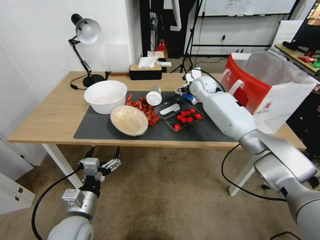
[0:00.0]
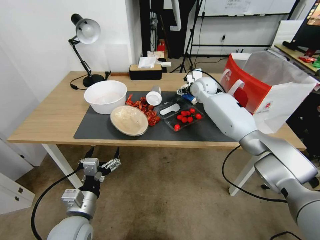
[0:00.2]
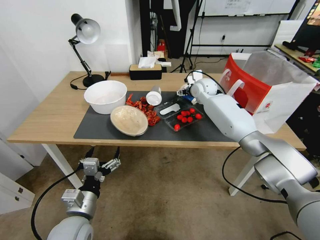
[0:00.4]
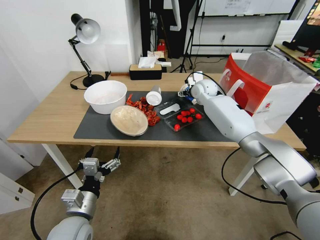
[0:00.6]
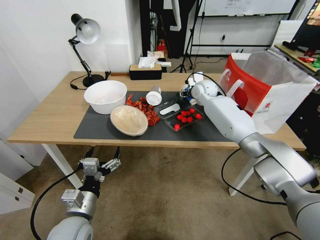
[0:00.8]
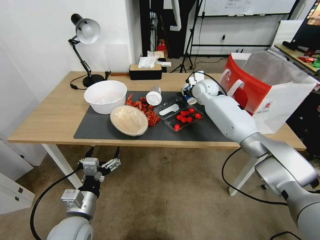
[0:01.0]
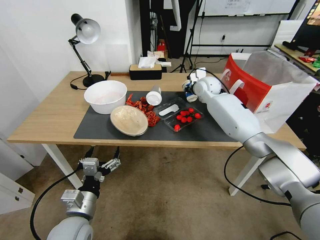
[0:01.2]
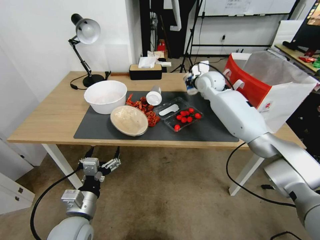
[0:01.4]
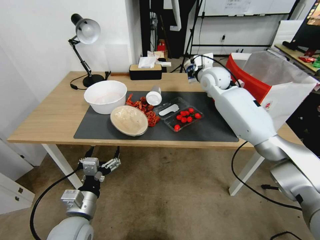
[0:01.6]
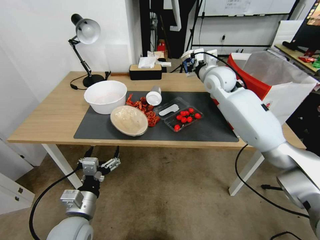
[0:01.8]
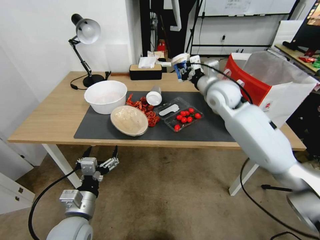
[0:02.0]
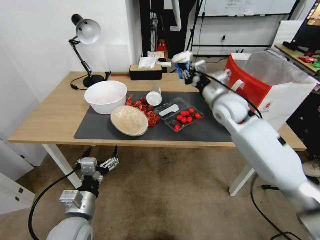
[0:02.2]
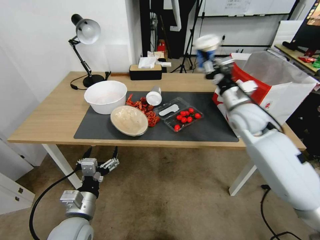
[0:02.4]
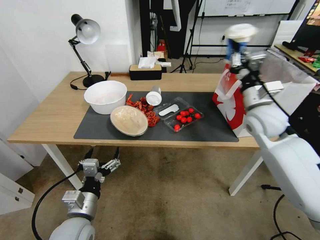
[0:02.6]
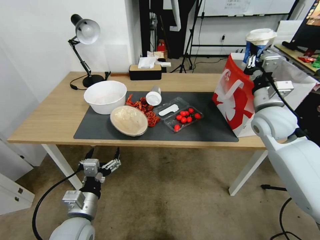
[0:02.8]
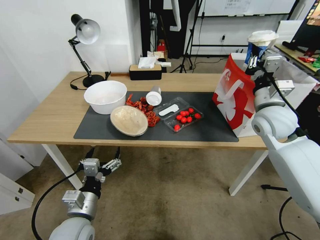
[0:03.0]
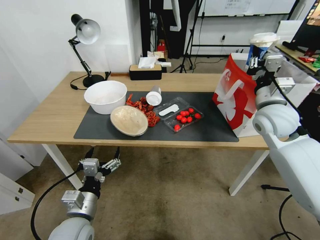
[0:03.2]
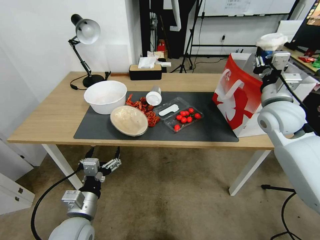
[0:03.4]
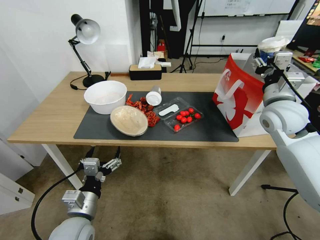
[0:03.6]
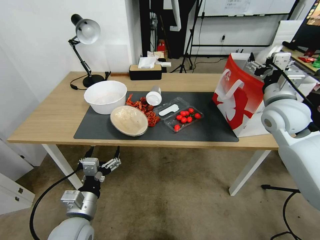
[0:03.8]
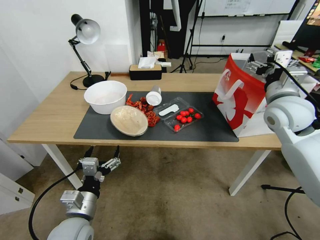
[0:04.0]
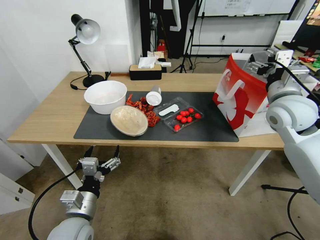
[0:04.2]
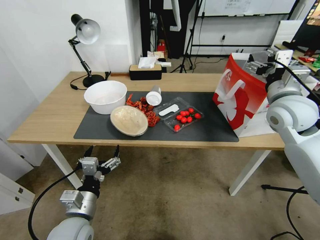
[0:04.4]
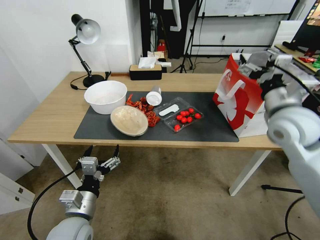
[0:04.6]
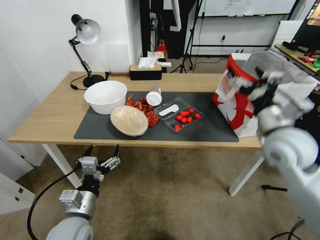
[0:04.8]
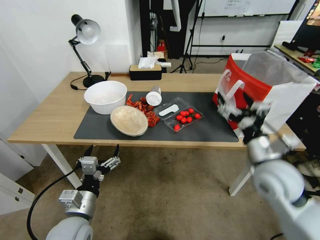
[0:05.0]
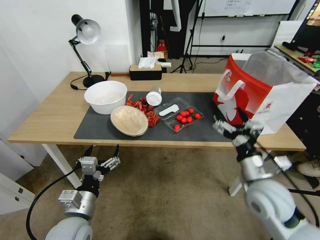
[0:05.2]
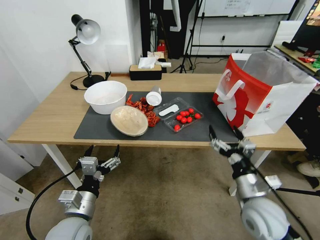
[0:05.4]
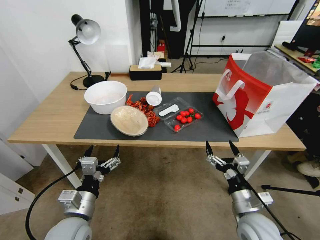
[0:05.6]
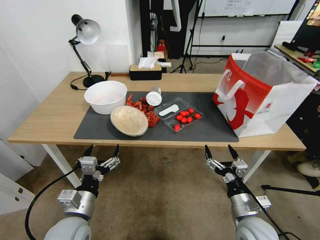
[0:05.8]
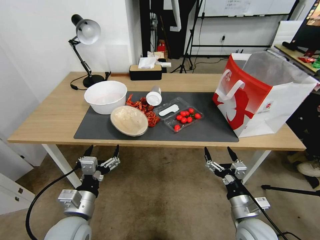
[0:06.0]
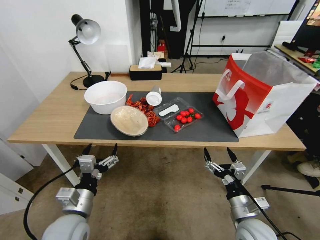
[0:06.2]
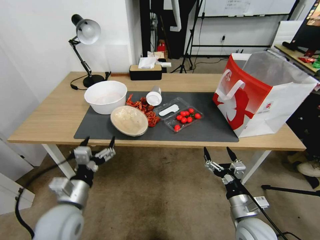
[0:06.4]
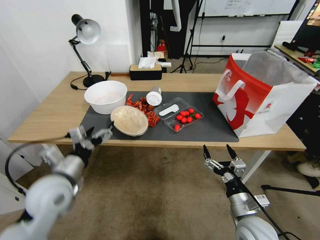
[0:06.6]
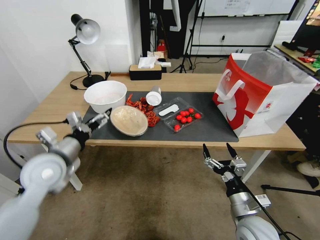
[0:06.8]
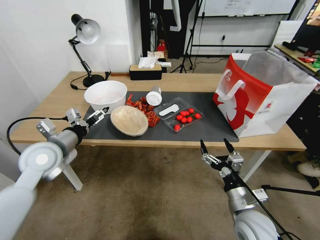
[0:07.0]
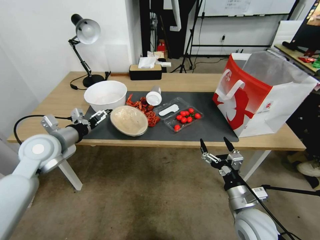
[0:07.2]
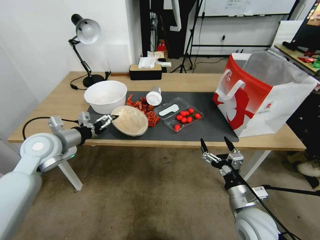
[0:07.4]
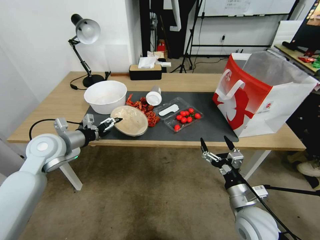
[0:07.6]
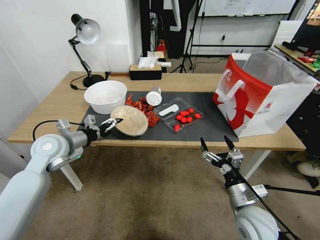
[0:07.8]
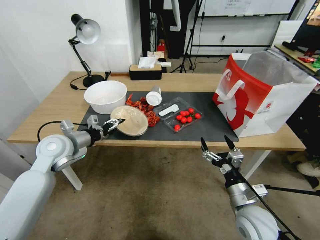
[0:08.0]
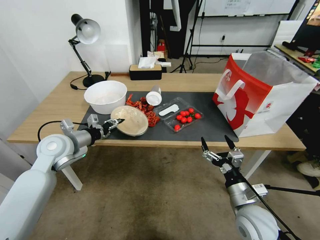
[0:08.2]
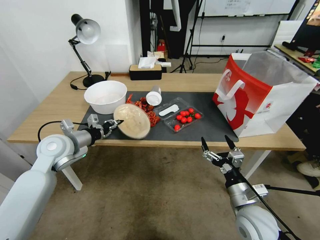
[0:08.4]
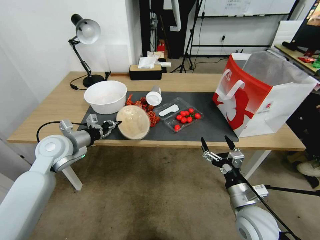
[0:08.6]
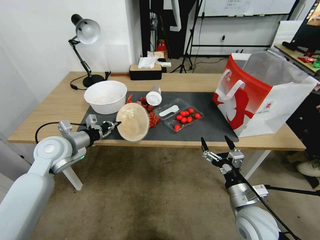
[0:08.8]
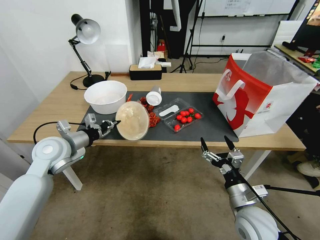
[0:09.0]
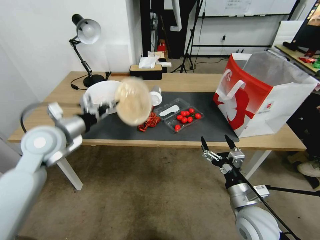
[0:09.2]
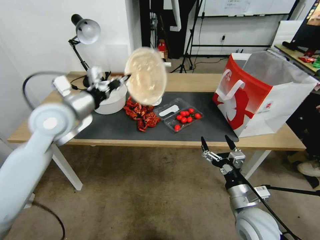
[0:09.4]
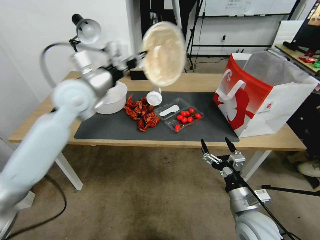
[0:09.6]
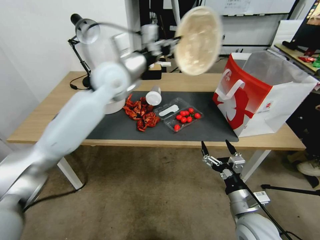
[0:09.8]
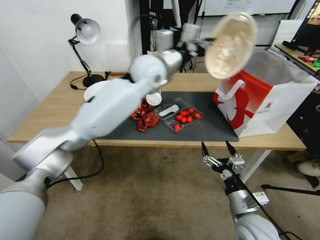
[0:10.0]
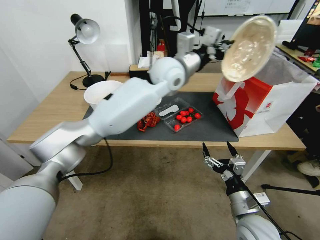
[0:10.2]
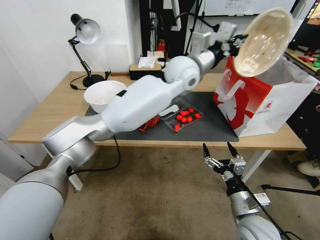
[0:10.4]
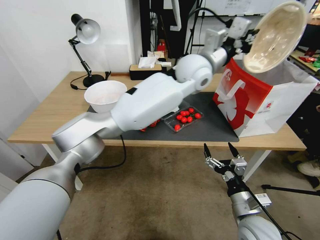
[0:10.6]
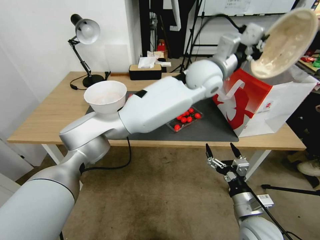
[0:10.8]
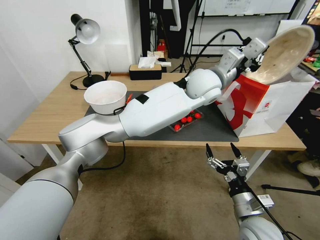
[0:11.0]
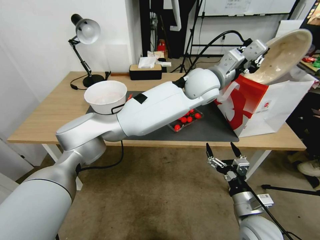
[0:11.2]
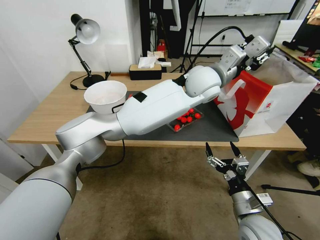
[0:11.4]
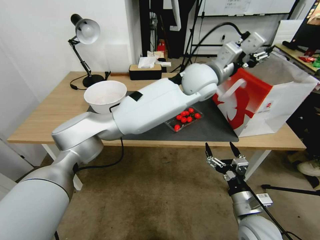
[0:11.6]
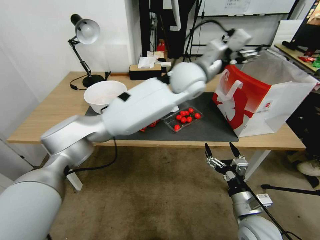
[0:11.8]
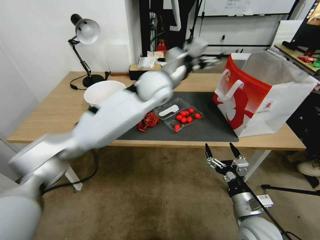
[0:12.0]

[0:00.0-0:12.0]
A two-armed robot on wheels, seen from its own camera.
0:00.0 to 0:01.6: The right gripper shifts about 5 cm upward, and closes its fingers.
0:01.6 to 0:03.0: The right gripper moves backward and to the right, some 20 cm.
0:03.0 to 0:04.4: The right gripper opens up.
0:04.4 to 0:06.0: The right gripper shifts about 35 cm downward and backward.
0:06.0 to 0:07.6: The left gripper moves forward, upward and to the left, approximately 25 cm.
0:07.6 to 0:09.0: The left gripper closes.
0:09.0 to 0:10.4: The left gripper goes some 40 cm to the right and upward.
0:10.4 to 0:12.0: The left gripper heads to the left, covering roughly 10 cm, and opens up.

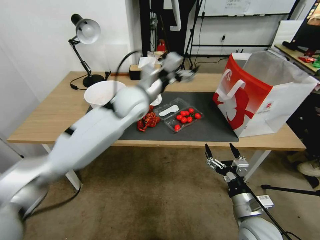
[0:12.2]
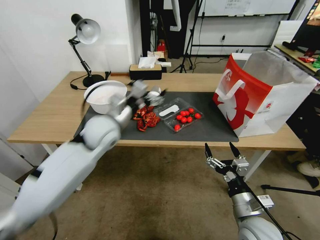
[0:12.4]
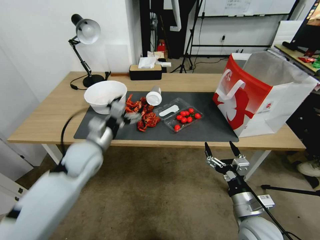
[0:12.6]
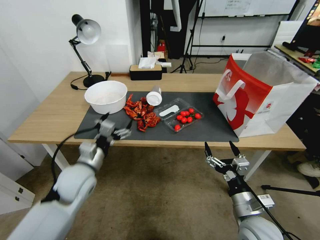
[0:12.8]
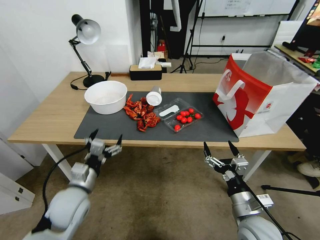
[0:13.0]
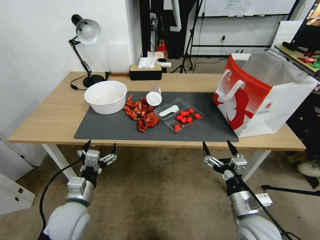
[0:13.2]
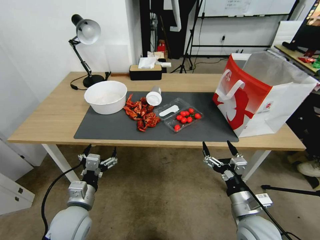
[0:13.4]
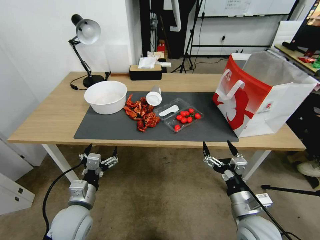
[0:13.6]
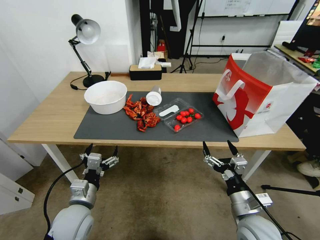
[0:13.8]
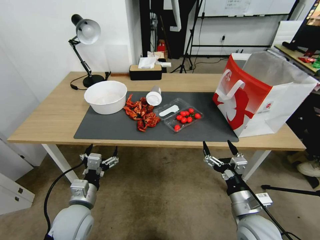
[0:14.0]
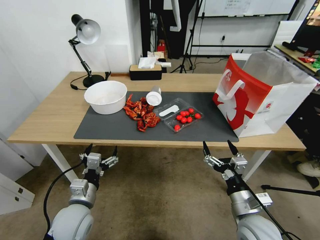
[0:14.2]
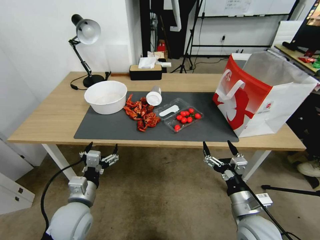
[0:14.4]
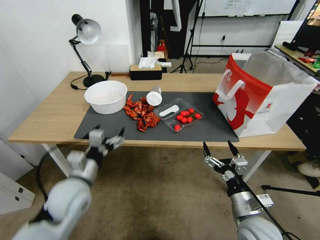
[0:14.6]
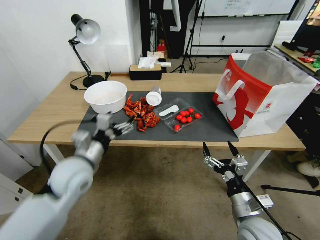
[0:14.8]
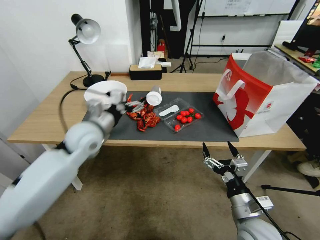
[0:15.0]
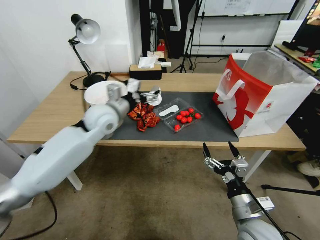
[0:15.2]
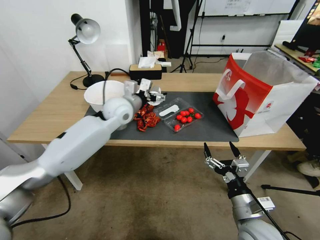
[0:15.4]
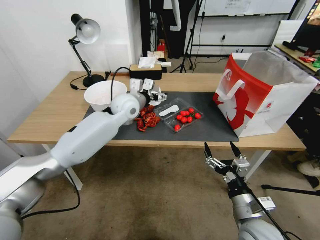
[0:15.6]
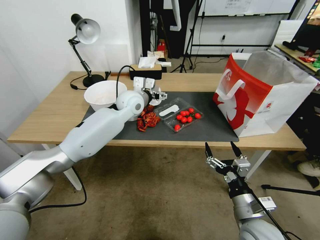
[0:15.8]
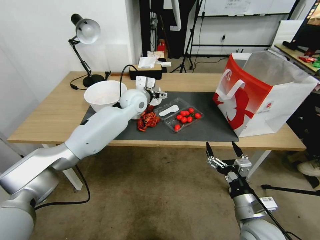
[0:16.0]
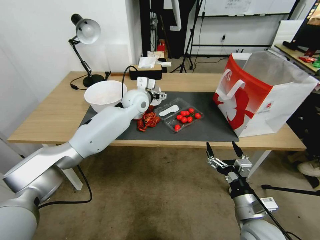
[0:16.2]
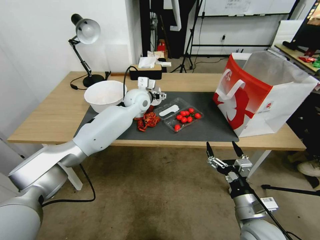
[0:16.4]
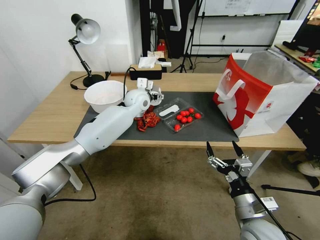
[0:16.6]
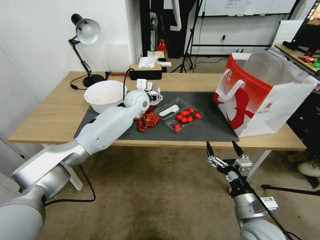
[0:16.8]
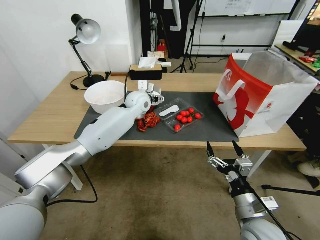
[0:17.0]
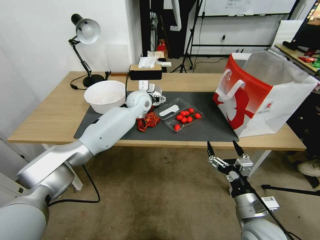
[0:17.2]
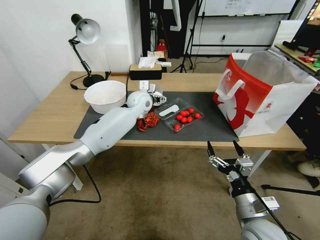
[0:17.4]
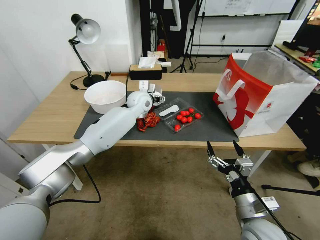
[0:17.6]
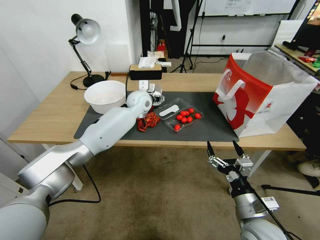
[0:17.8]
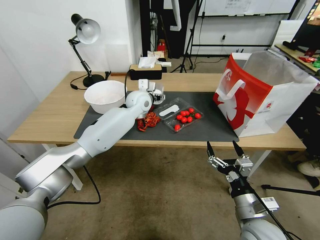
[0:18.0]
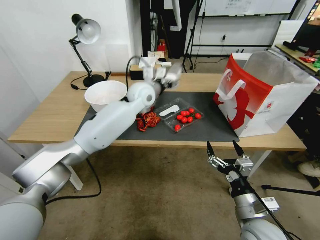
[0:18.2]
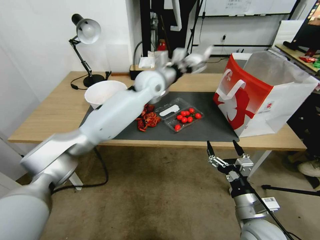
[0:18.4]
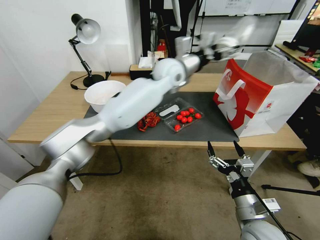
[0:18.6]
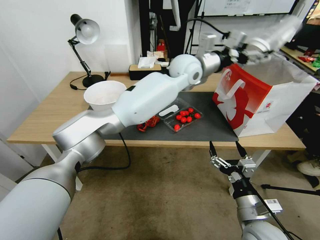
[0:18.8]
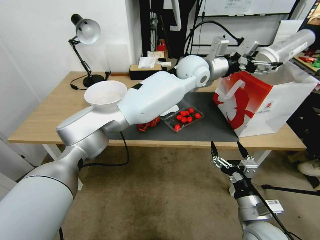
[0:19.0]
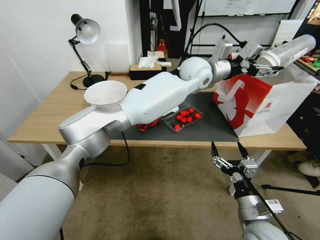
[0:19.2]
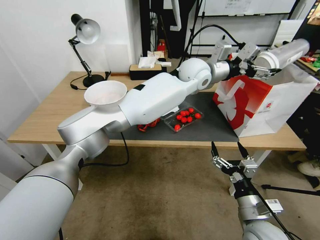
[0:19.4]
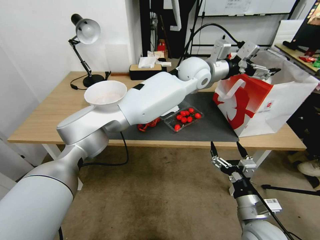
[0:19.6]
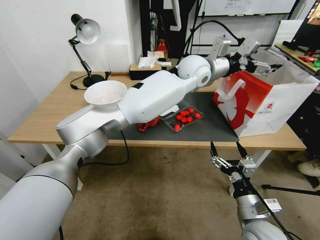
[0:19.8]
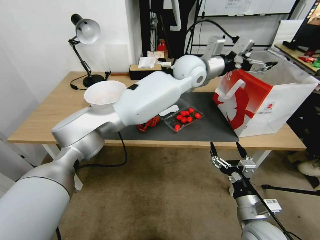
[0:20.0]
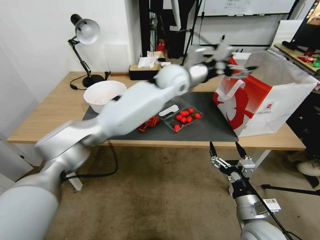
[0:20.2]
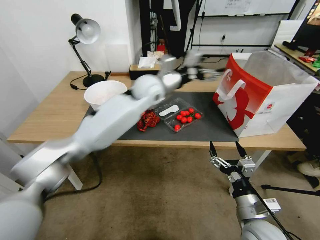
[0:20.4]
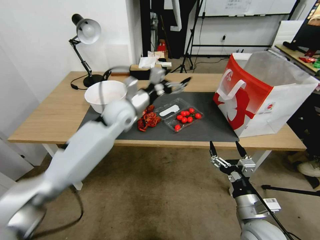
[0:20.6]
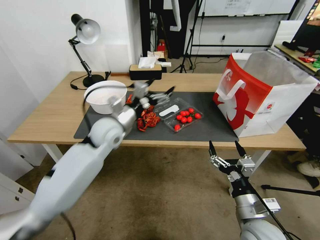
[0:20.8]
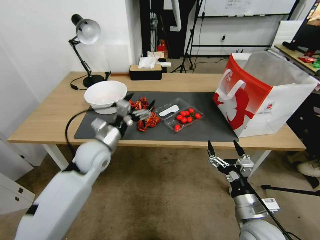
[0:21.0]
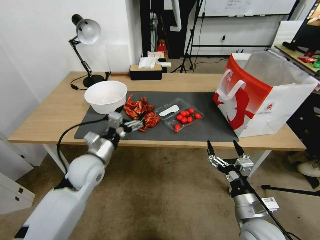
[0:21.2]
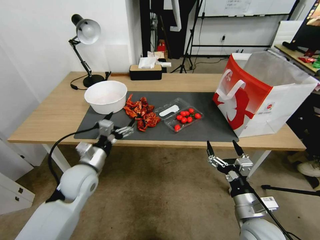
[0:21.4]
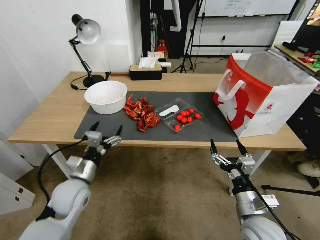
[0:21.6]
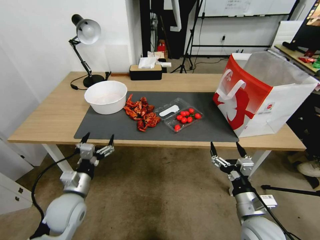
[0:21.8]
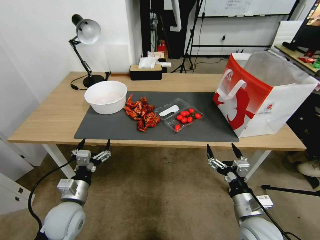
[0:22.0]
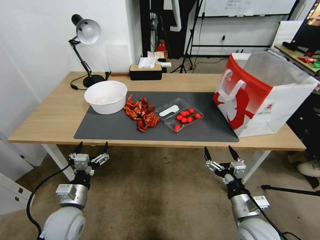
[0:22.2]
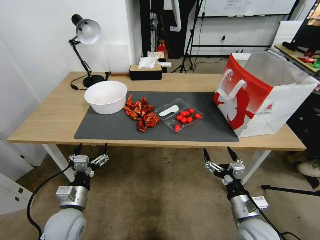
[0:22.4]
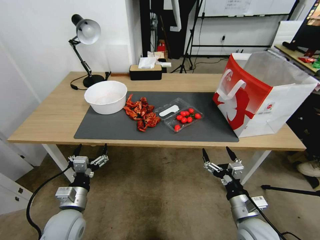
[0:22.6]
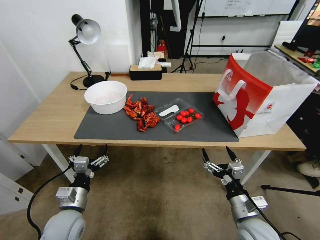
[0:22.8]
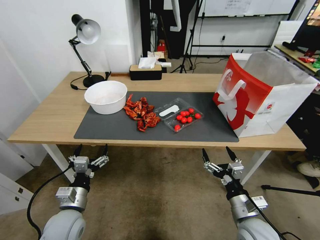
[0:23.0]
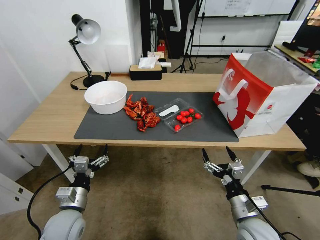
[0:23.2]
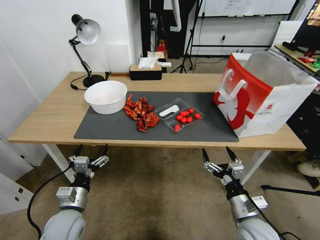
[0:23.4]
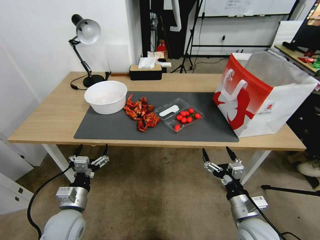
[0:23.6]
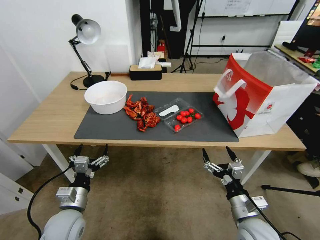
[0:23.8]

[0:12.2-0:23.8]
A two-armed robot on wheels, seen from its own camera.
0:12.2 to 0:13.6: The left gripper is displaced backward, downward and to the left by roughly 35 cm.
0:13.6 to 0:15.0: The left gripper travels forward and upward by approximately 25 cm.
0:15.0 to 0:16.6: The left gripper heads forward and to the right, covering some 20 cm.
0:16.6 to 0:18.0: The grippers make only small movements.
0:18.0 to 0:19.4: The left gripper moves to the right and upward, about 25 cm.
0:19.4 to 0:21.0: The left gripper shifts some 40 cm to the left, downward and backward.
0:21.0 to 0:22.4: The left gripper heads backward, downward and to the left, covering approximately 20 cm.
0:22.4 to 0:23.8: Both grippers stay put.
